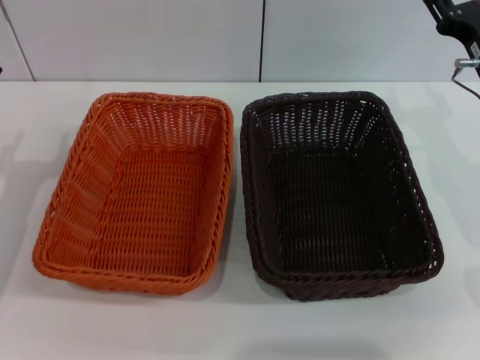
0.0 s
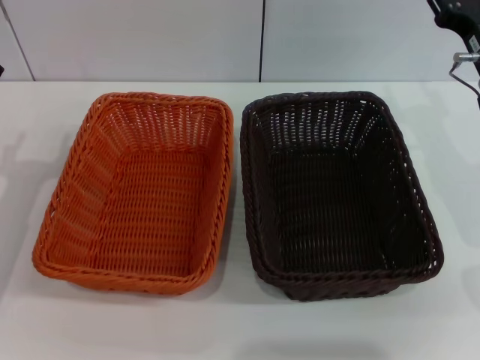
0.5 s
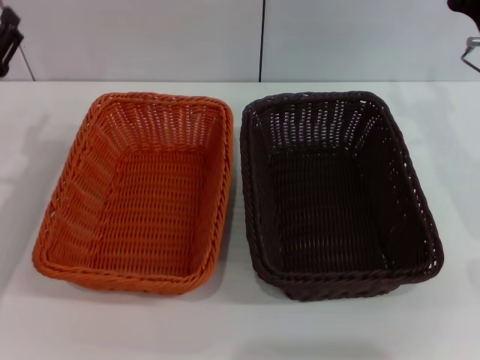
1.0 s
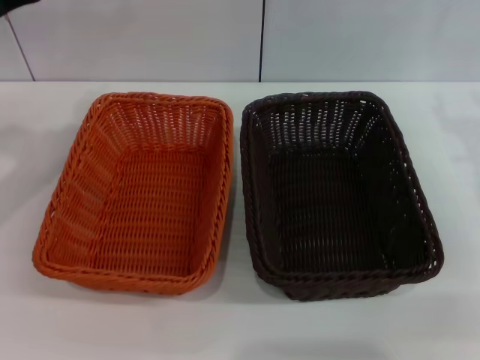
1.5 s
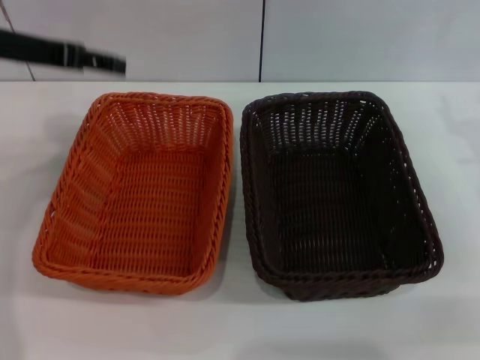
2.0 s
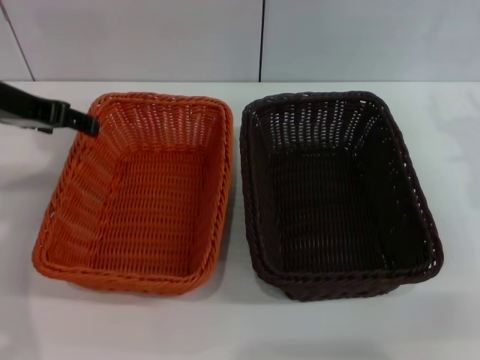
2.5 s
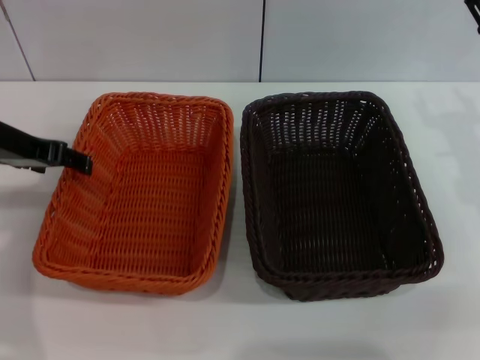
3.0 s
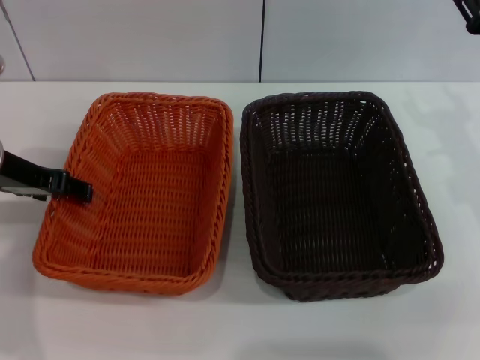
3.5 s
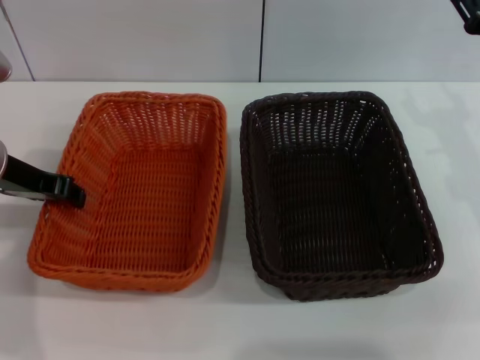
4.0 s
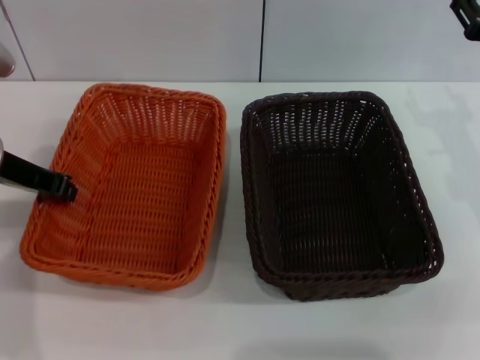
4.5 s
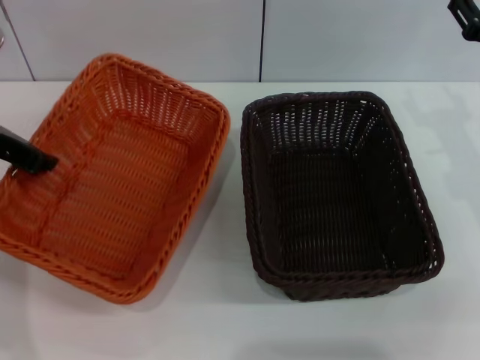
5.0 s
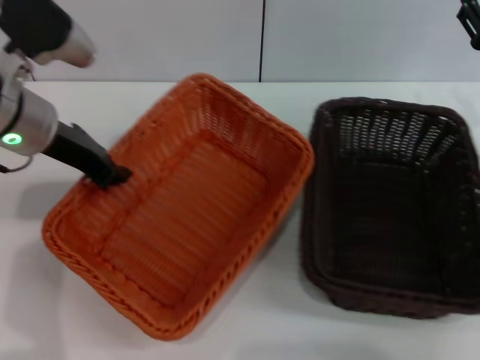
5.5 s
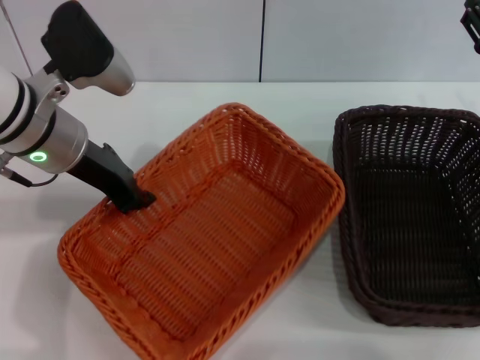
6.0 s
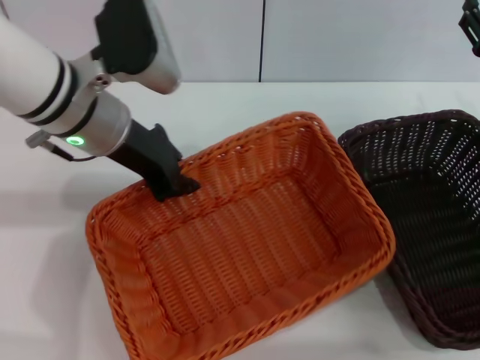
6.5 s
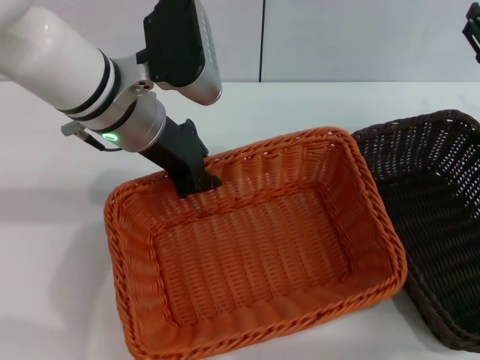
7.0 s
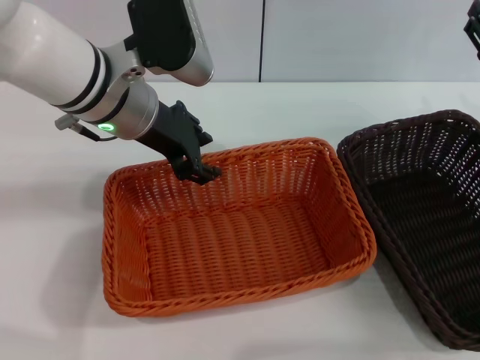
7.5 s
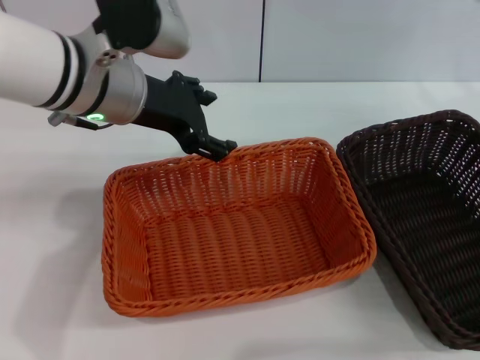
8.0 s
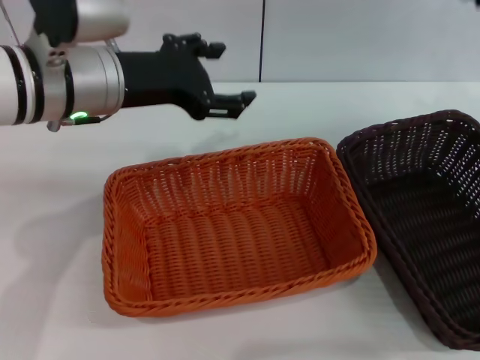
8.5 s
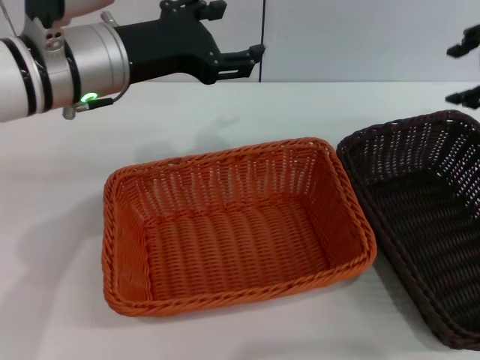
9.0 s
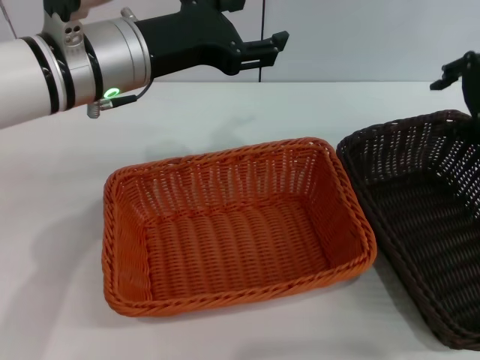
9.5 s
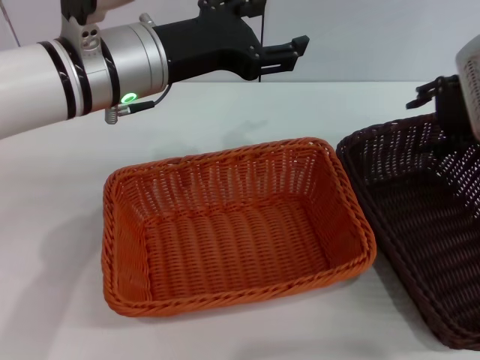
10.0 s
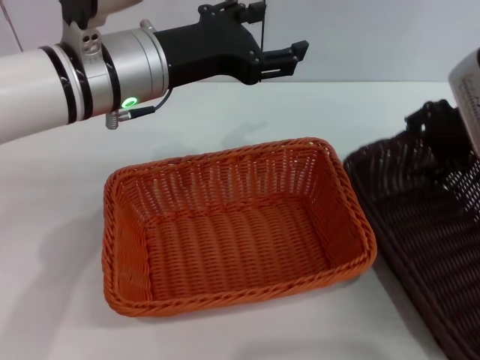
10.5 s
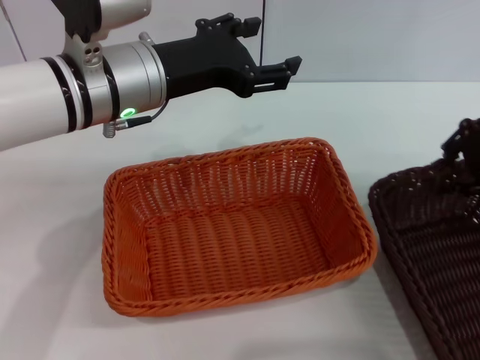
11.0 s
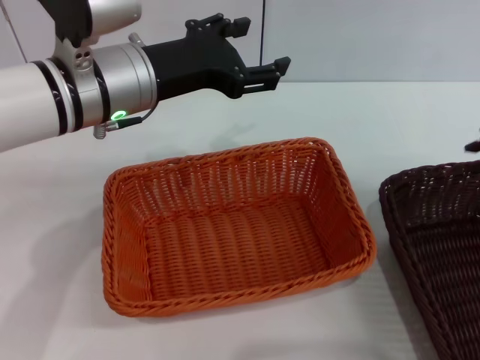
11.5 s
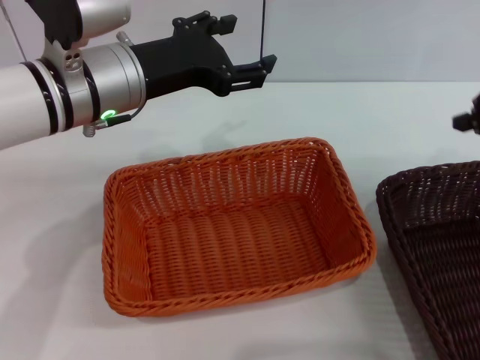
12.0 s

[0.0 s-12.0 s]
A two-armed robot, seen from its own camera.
Step, 0.0 to 5.0 s: Pick up the light basket with the left gripper.
Step, 5.5 to 7.0 s: Place the light basket in the center of view with the left gripper.
0.0 to 2.0 s: The left gripper heads upward and forward, covering approximately 20 cm, while the right gripper travels to the right by approximately 5 cm.
2.0 to 4.0 s: The left gripper goes some 10 cm downward.
4.0 to 6.0 s: The left gripper goes approximately 10 cm to the right, and closes its fingers.
6.0 to 8.0 s: The left gripper ends up some 5 cm from where it was, and opens, while the right gripper goes approximately 5 cm upward.
8.0 to 10.0 s: The right gripper moves to the left, about 5 cm, and moves about 10 cm upward and comes back.
10.0 to 12.0 s: The right gripper travels upward, to the right and backward by roughly 10 cm, and closes.

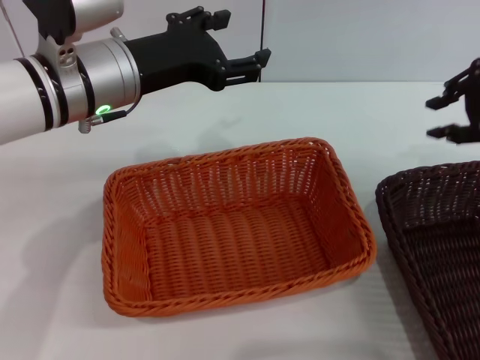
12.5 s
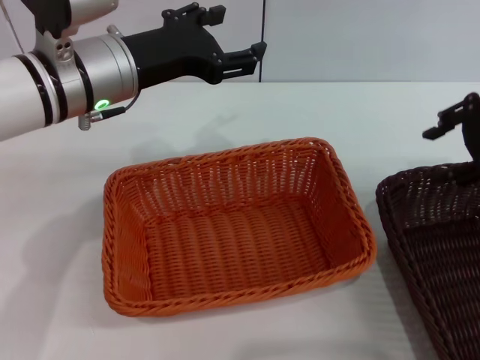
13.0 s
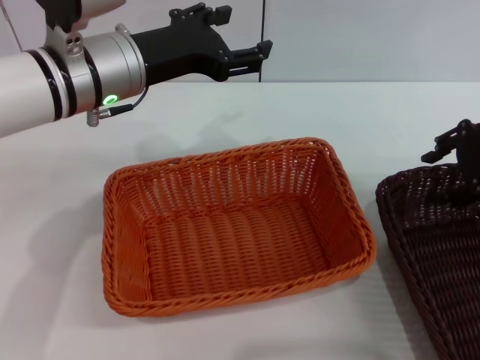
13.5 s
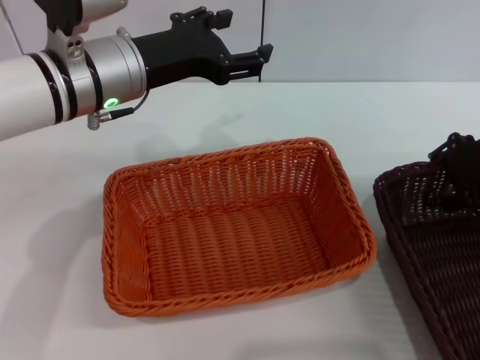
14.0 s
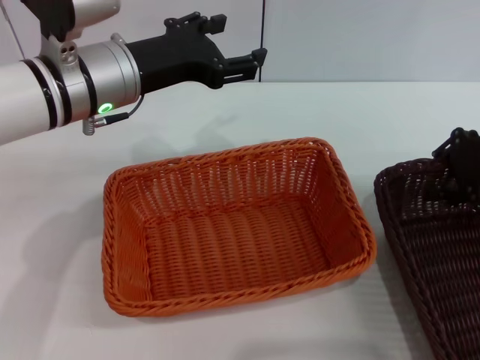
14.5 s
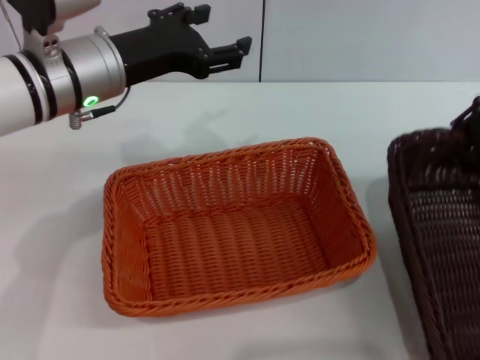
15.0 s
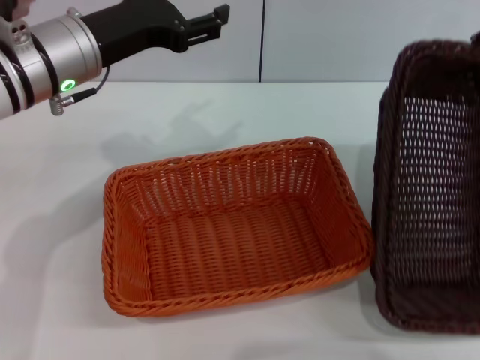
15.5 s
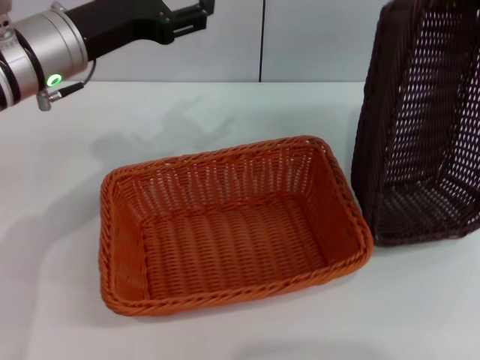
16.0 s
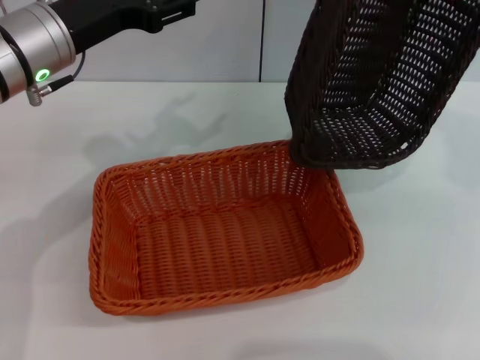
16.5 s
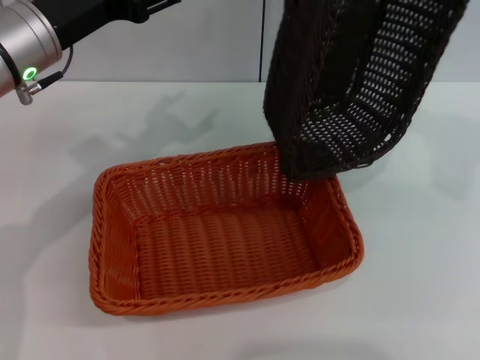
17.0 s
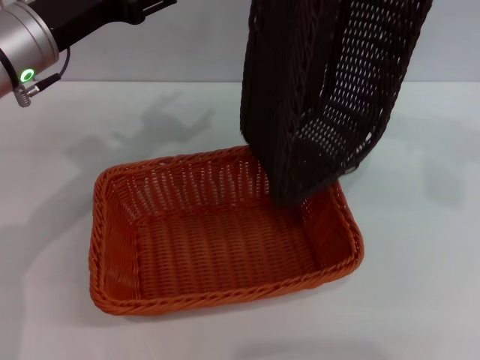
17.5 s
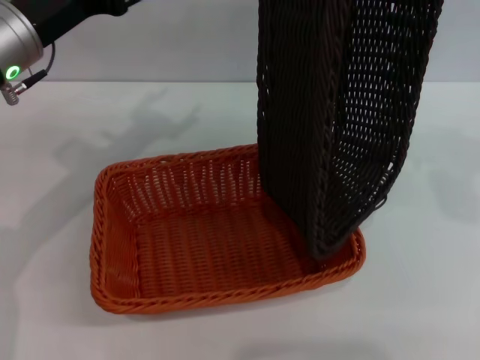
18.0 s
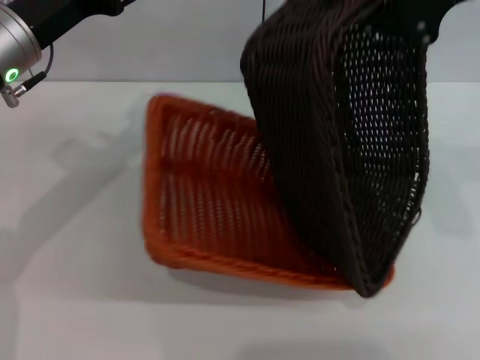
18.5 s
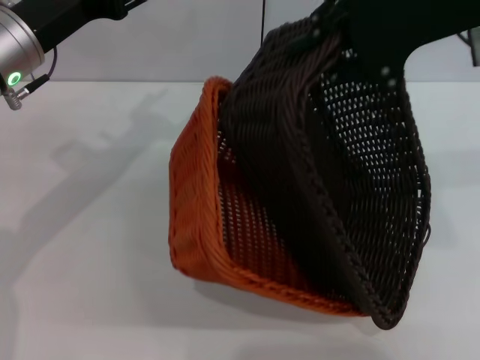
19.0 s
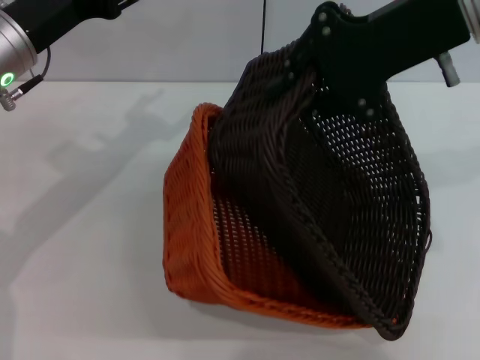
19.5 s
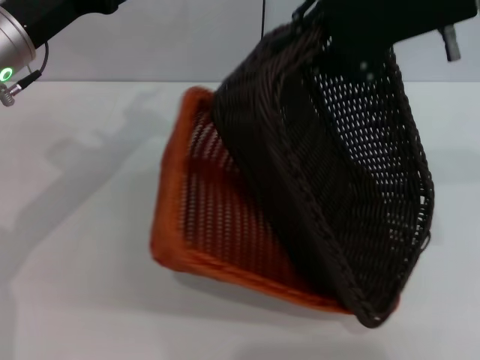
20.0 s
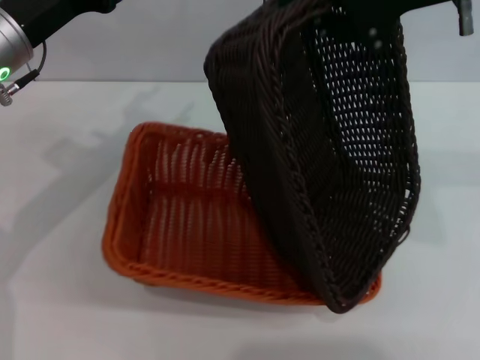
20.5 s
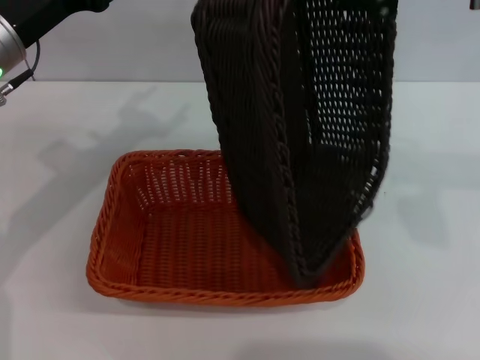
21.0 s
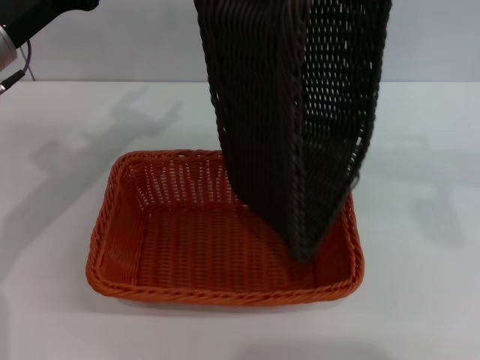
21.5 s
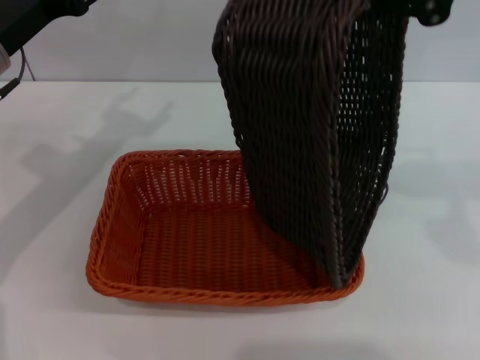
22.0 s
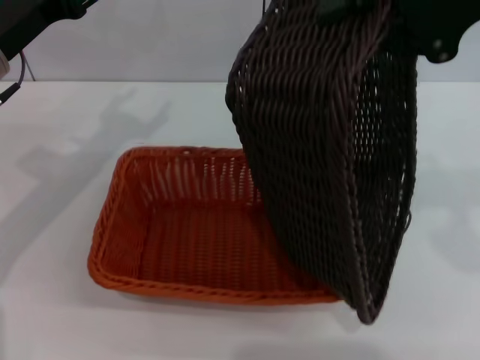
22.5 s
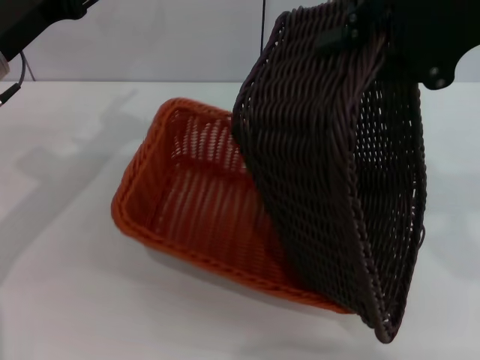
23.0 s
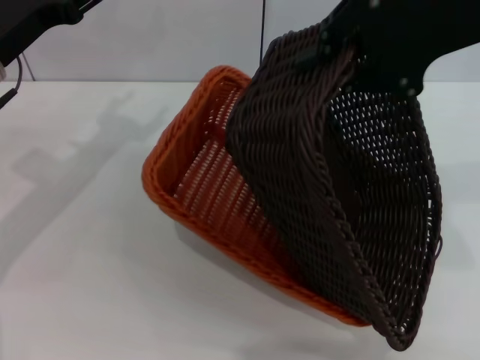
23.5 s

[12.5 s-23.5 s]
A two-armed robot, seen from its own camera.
Step, 12.5 to 15.0 s: Pick up the dark basket with the right gripper.
12.5 to 14.5 s: The right gripper moves downward, roughly 5 cm, and opens, then closes again.
14.5 to 16.0 s: The right gripper heads upward, covering roughly 15 cm, and closes up.
16.0 to 18.0 s: The right gripper shifts approximately 5 cm to the left.
18.0 to 20.0 s: The right gripper travels to the left by some 5 cm.
20.0 to 21.5 s: The right gripper changes place by some 5 cm.

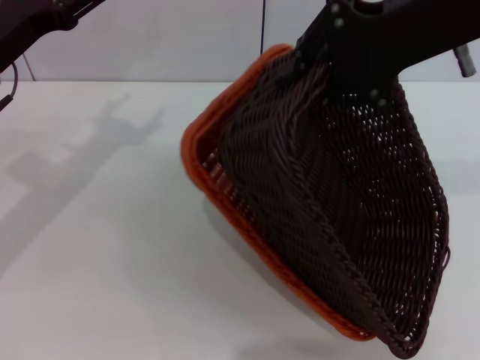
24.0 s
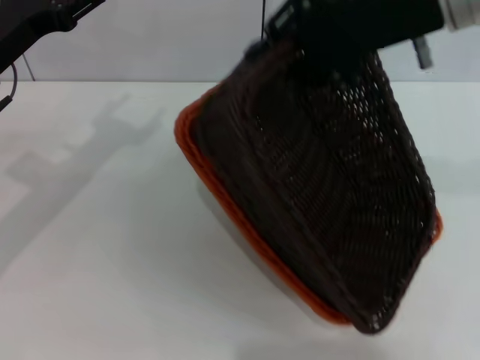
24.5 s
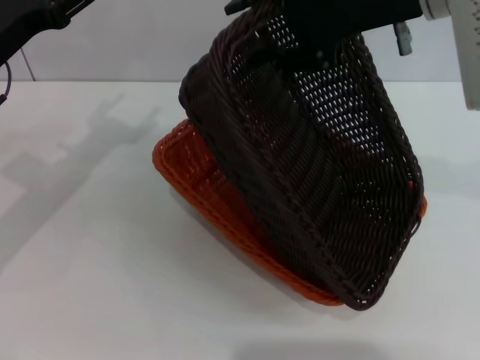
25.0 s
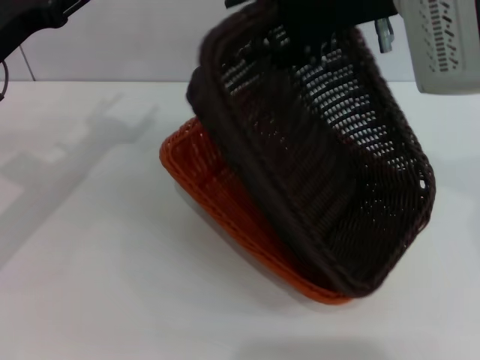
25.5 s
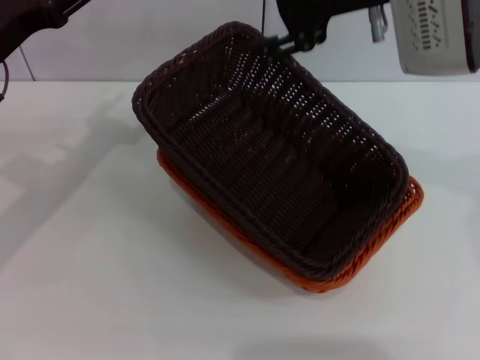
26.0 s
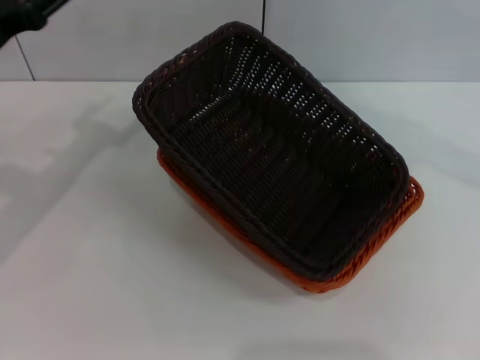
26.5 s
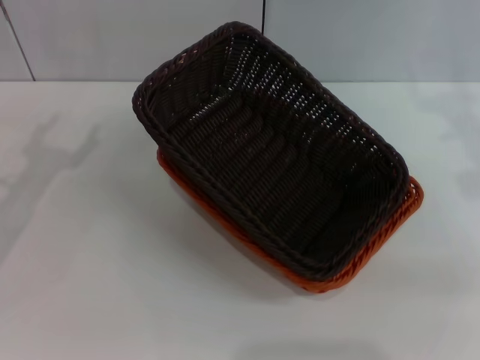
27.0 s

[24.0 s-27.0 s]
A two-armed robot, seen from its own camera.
24.0 to 25.5 s: The right gripper changes place by roughly 5 cm, and opens.
25.5 to 27.0 s: The left gripper moves backward, about 5 cm. The right gripper shifts some 20 cm to the right and downward.
